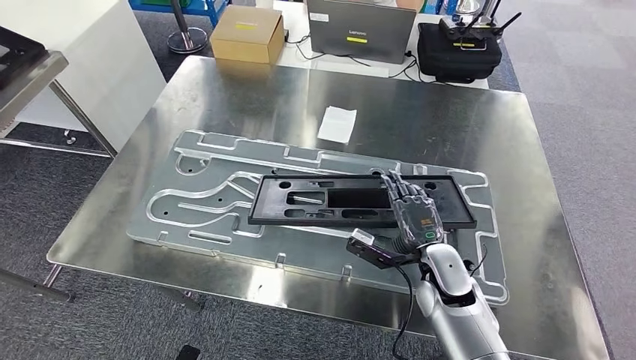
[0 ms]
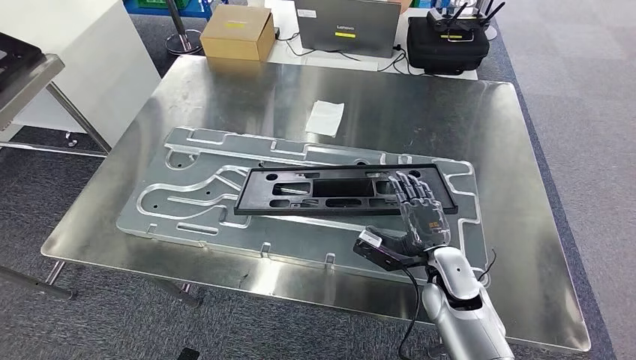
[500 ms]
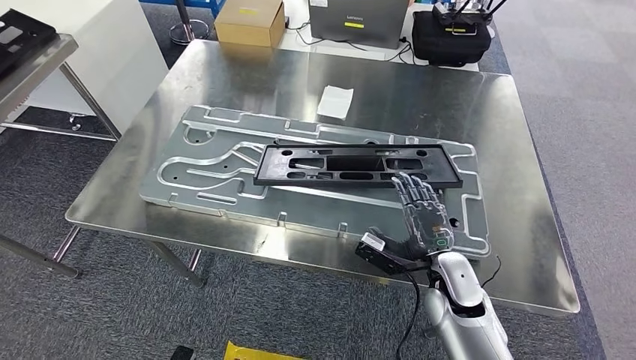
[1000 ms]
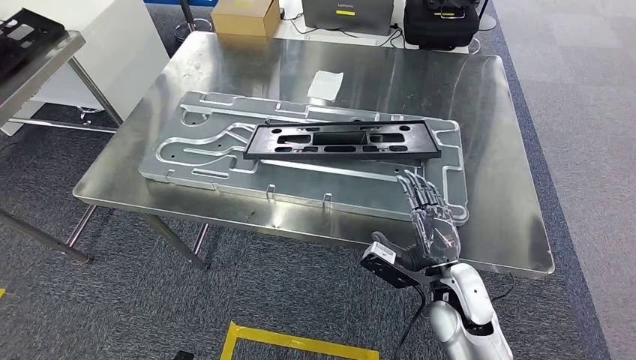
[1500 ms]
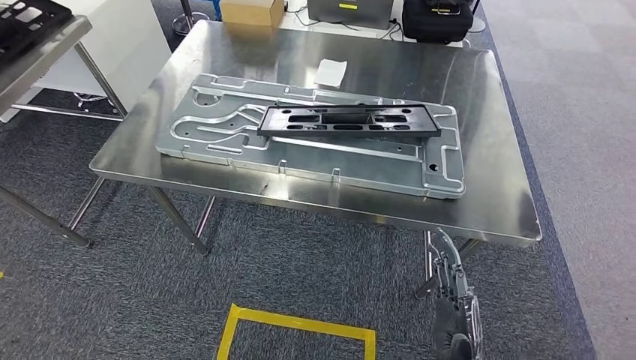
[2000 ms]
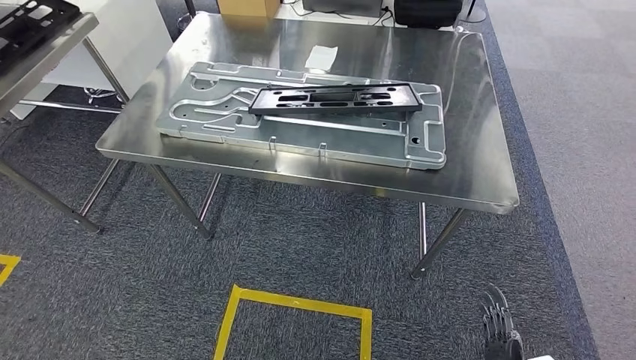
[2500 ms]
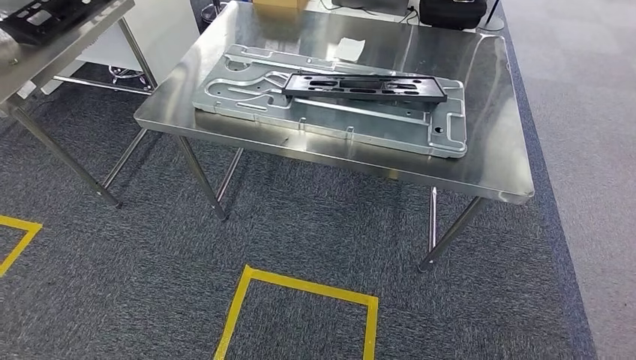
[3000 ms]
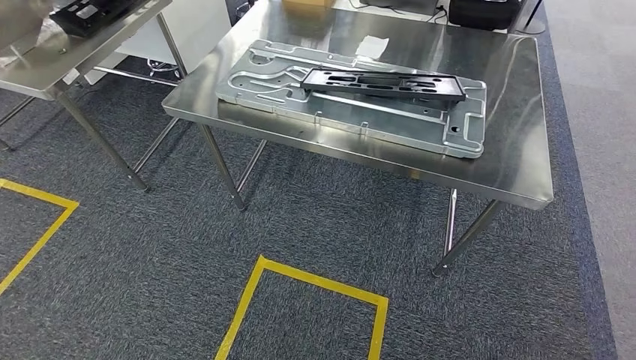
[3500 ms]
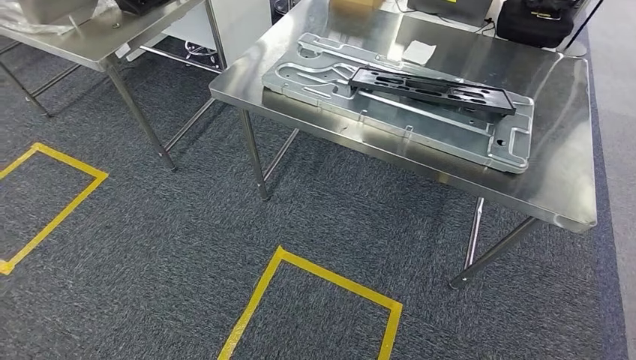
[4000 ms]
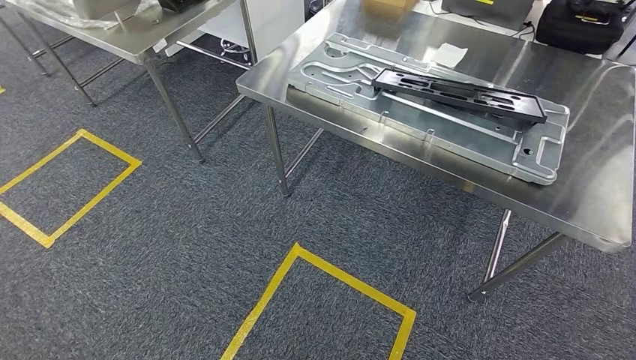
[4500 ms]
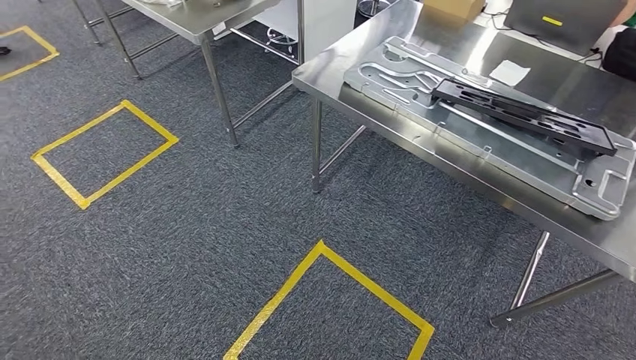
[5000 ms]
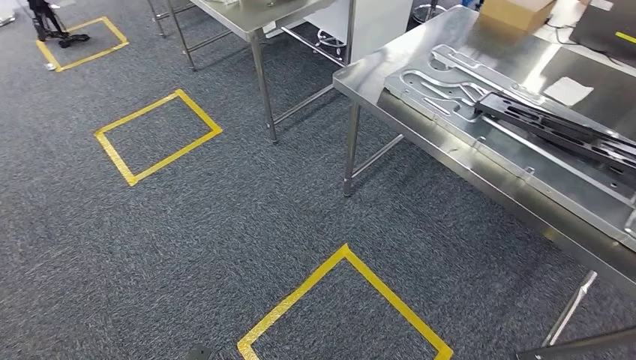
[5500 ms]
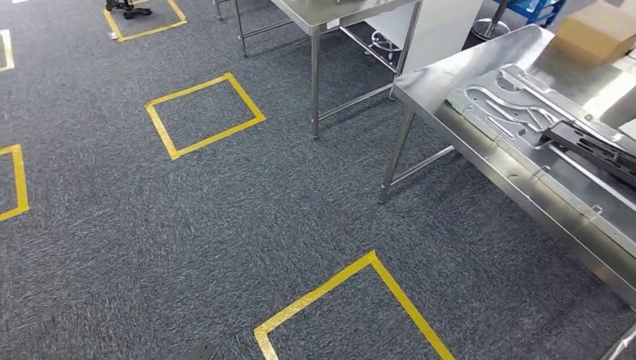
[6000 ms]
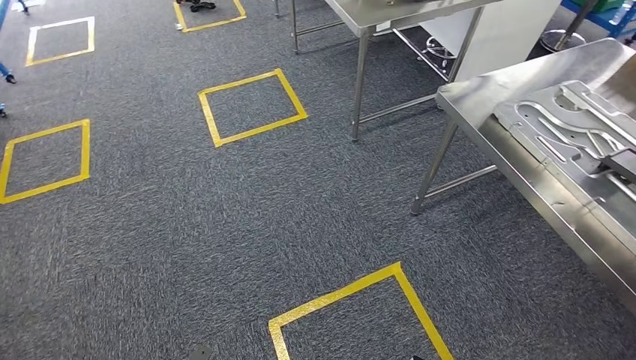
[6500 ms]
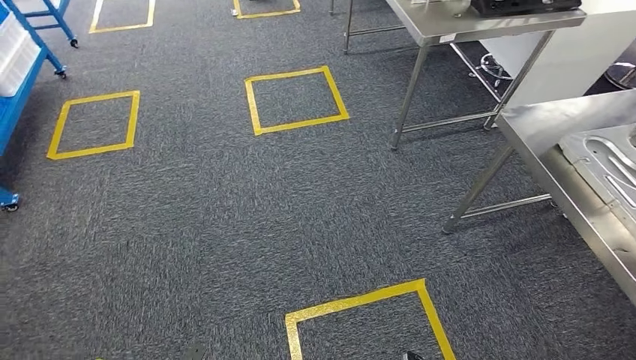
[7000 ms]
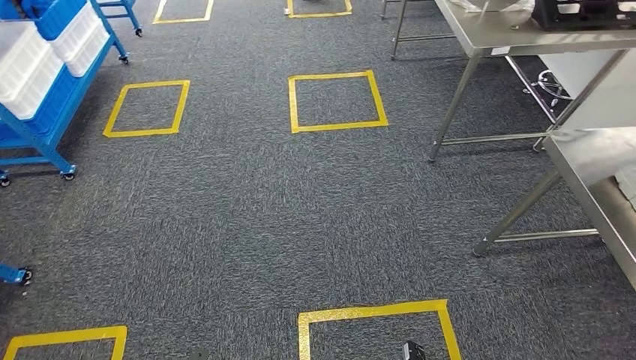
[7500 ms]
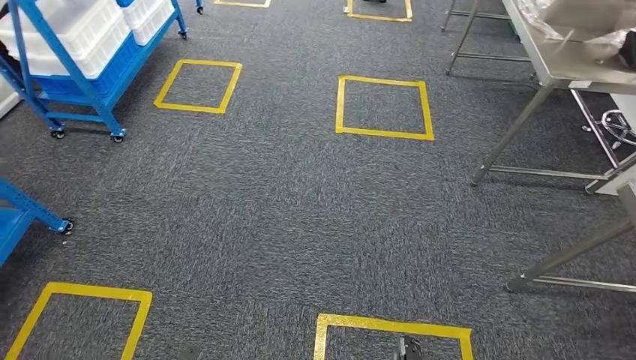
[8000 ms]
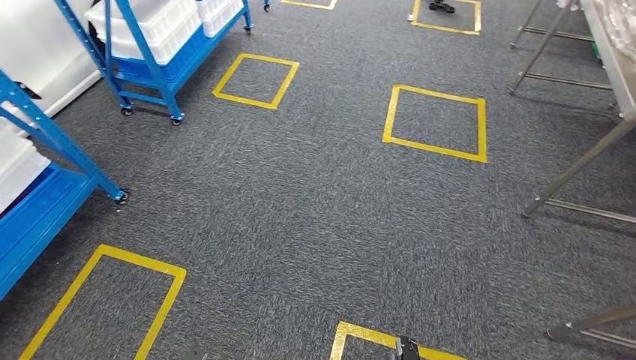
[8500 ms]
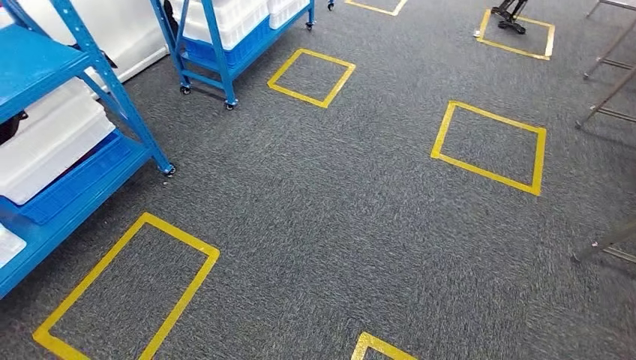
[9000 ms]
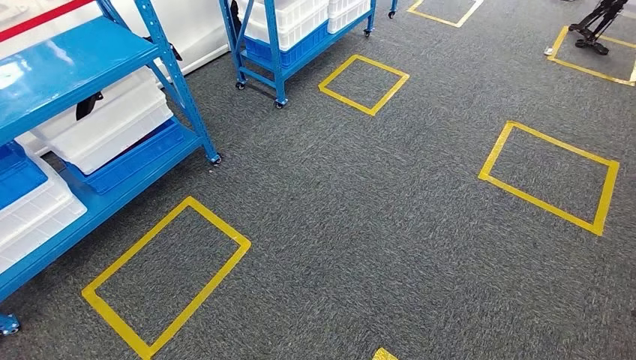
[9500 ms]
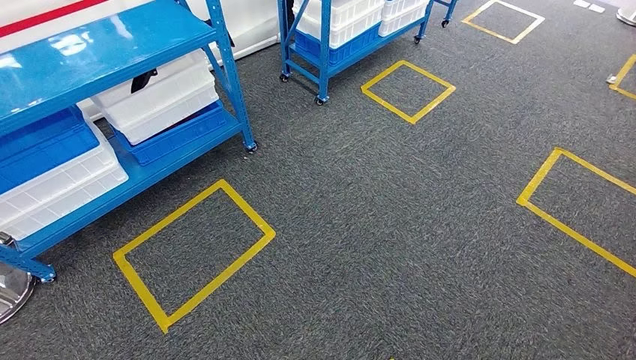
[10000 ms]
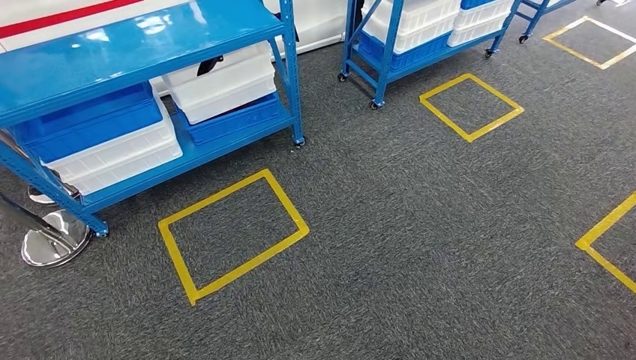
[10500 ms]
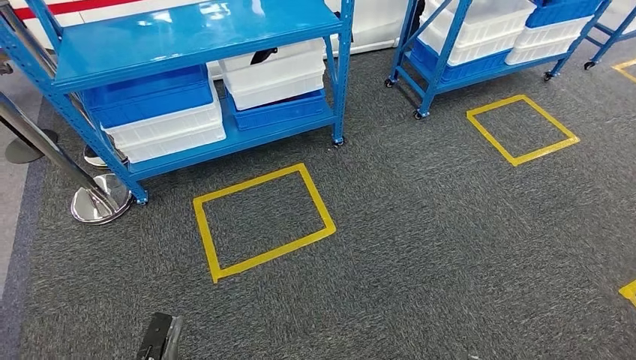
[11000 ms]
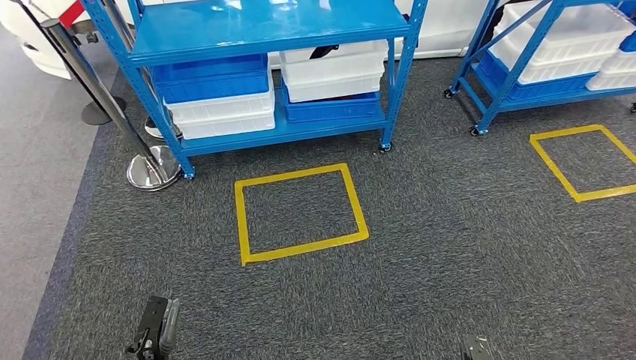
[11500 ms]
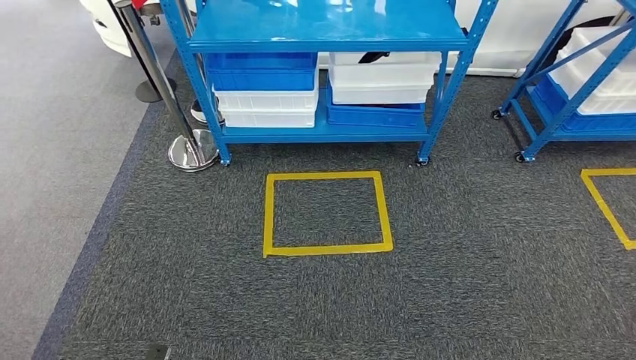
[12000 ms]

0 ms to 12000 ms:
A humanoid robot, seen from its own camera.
Step, 0 ms to 3000 ms: Insert the large material into the corresponding slot on the workbench.

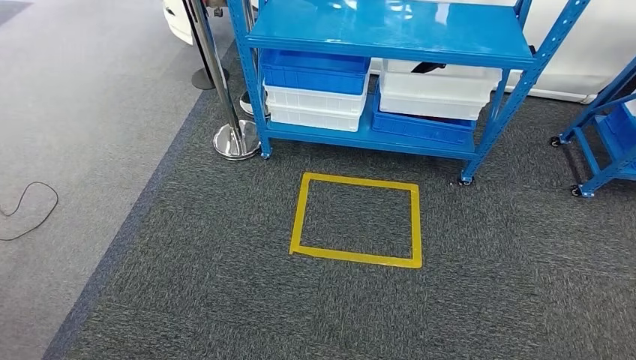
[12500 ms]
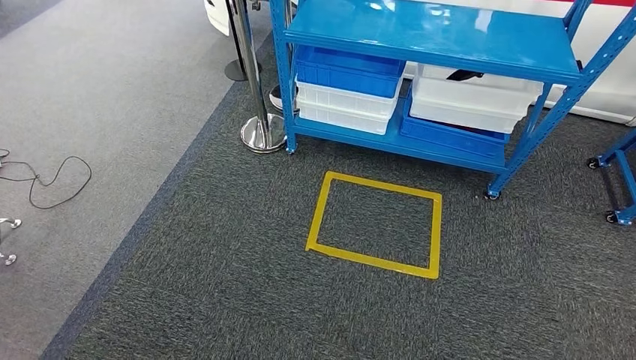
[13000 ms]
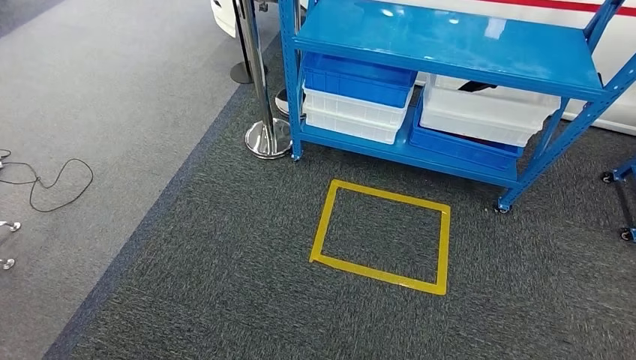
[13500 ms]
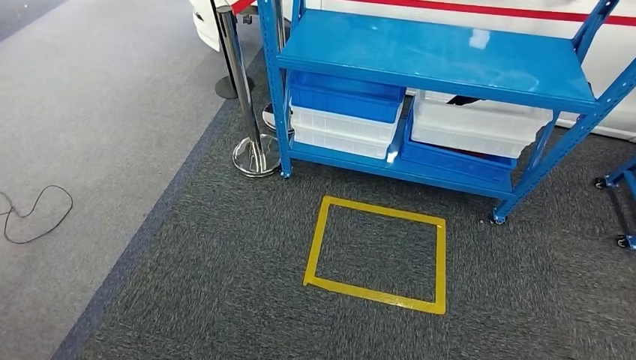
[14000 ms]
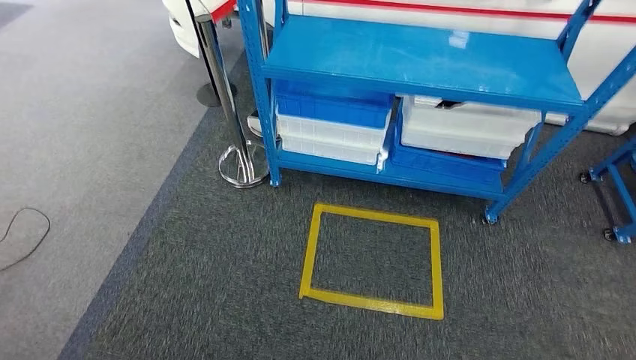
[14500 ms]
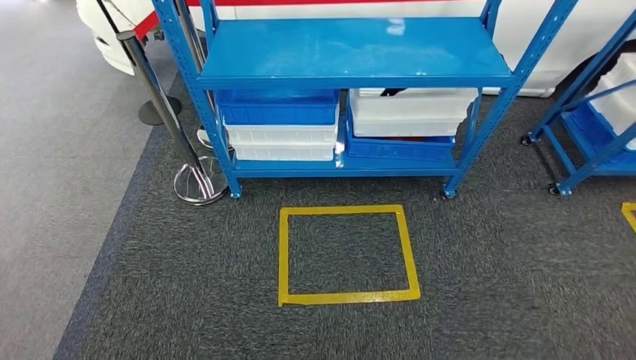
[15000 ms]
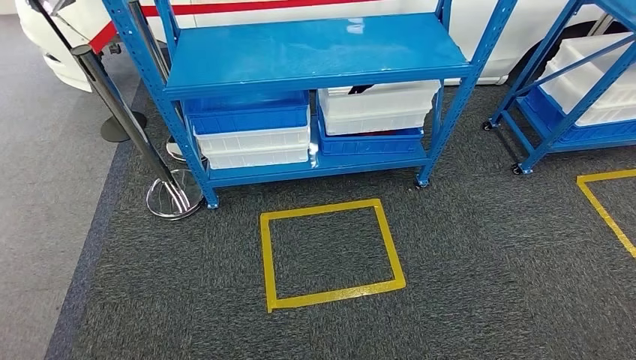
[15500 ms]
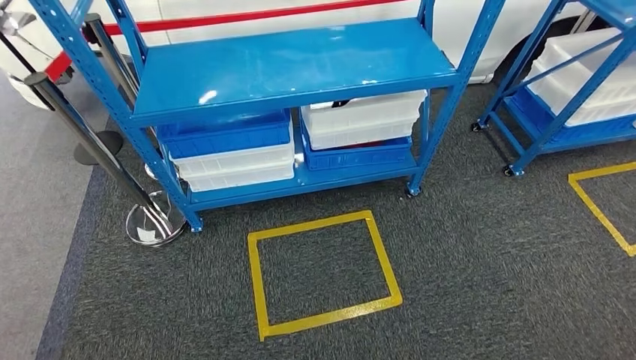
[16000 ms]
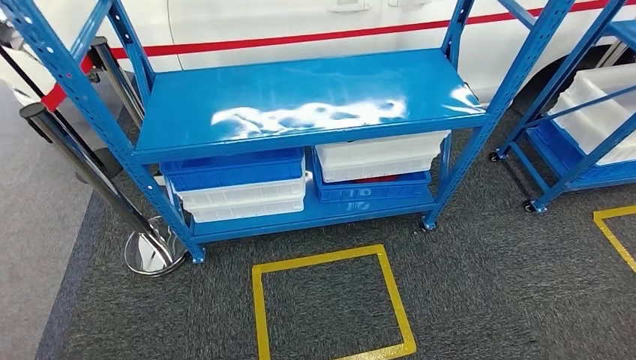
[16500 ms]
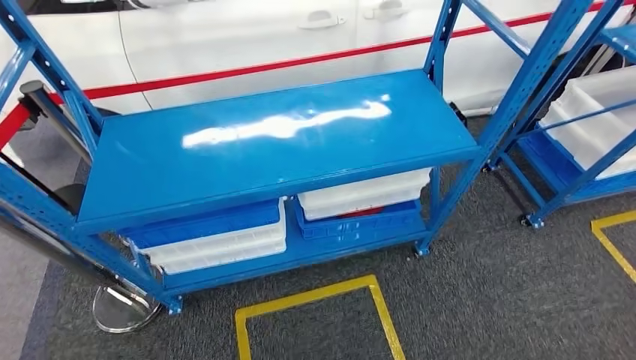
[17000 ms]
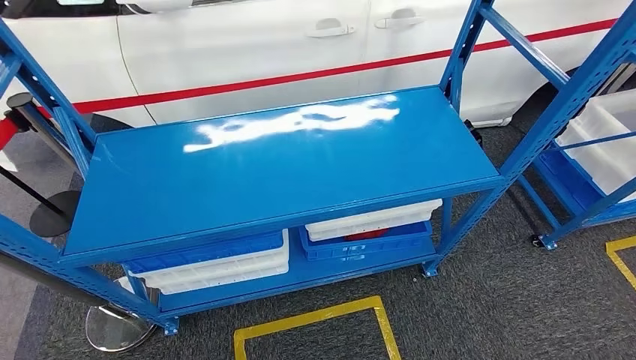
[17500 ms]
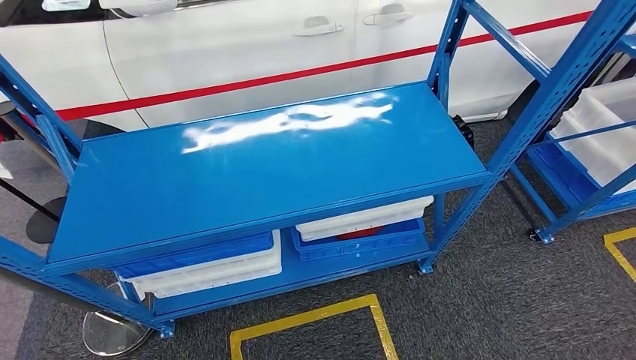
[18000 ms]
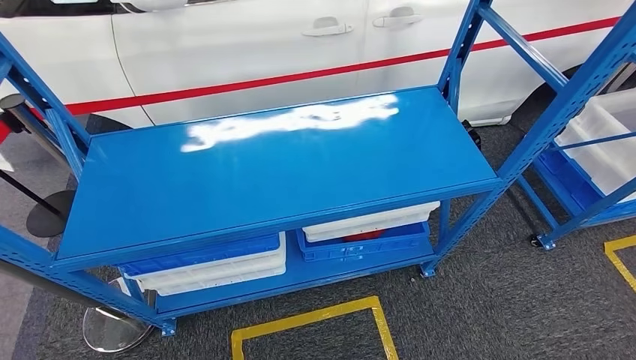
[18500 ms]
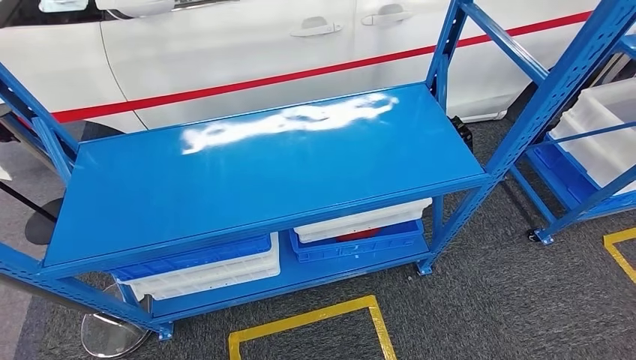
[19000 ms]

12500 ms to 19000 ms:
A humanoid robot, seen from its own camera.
Step, 12500 ms to 19000 ms: Move to the initial position of the shelf.
